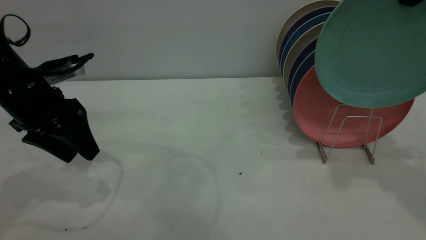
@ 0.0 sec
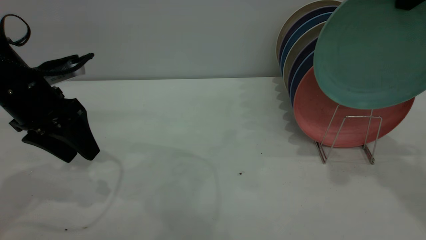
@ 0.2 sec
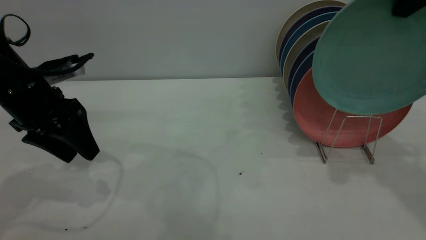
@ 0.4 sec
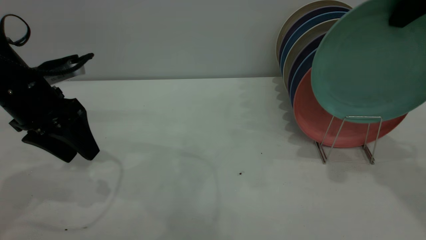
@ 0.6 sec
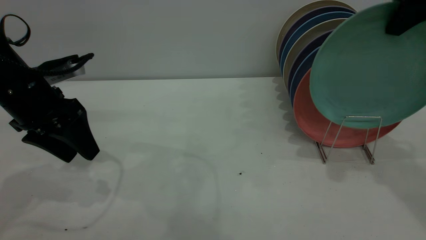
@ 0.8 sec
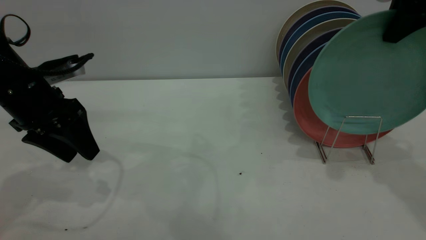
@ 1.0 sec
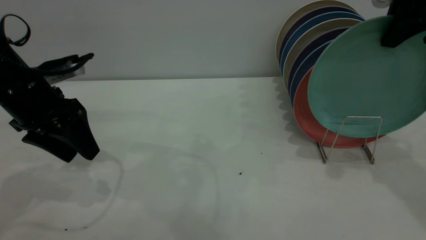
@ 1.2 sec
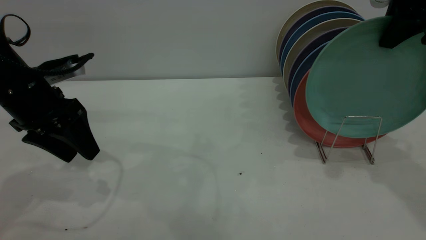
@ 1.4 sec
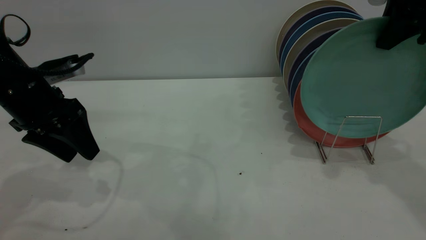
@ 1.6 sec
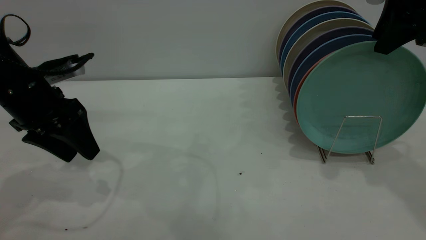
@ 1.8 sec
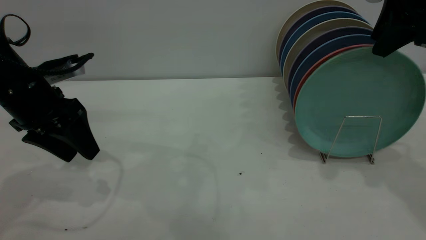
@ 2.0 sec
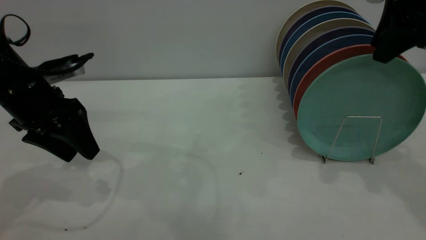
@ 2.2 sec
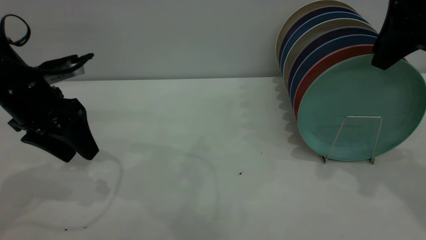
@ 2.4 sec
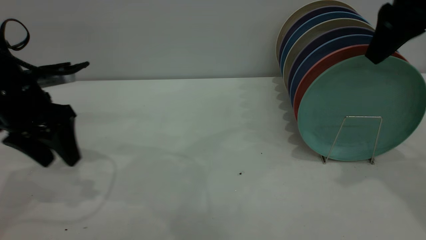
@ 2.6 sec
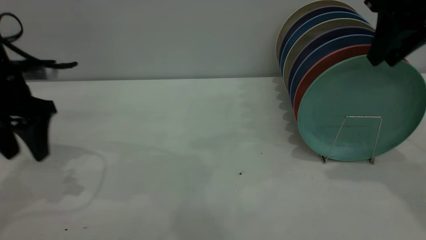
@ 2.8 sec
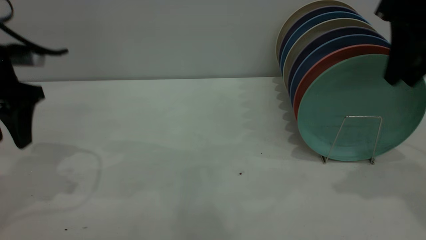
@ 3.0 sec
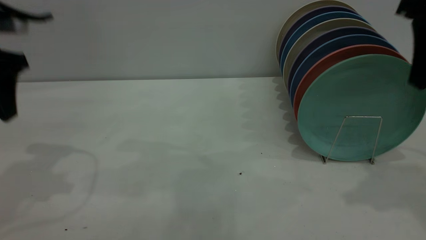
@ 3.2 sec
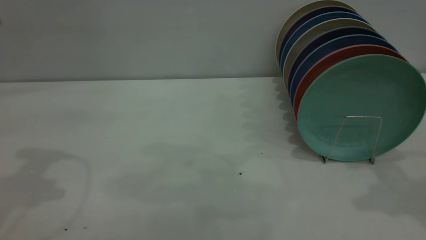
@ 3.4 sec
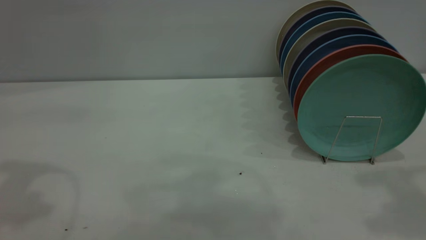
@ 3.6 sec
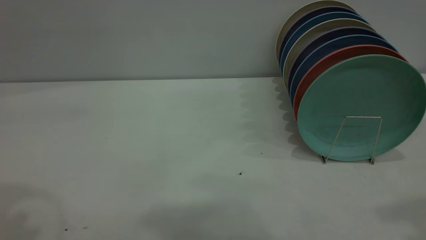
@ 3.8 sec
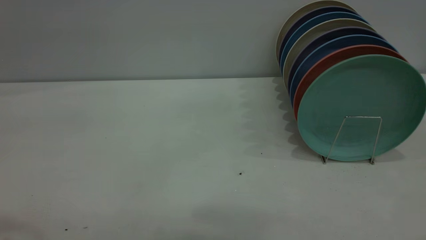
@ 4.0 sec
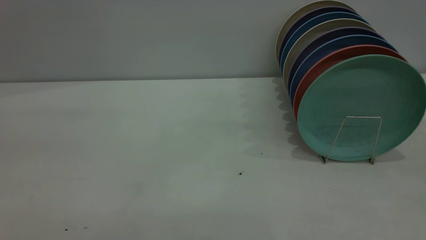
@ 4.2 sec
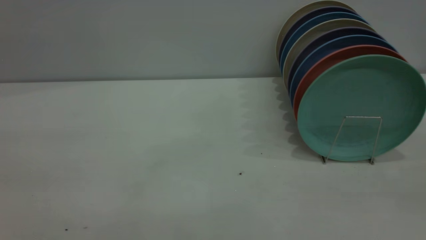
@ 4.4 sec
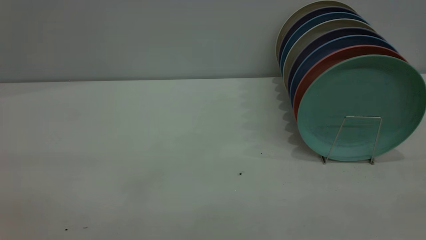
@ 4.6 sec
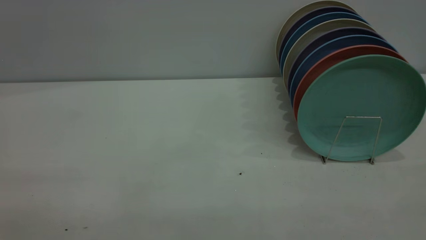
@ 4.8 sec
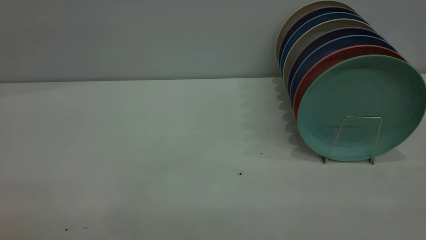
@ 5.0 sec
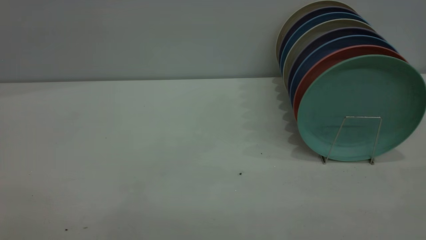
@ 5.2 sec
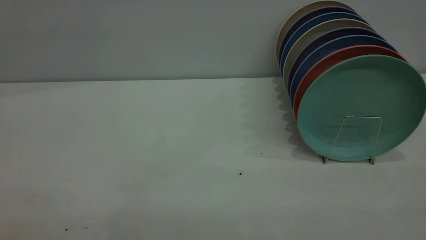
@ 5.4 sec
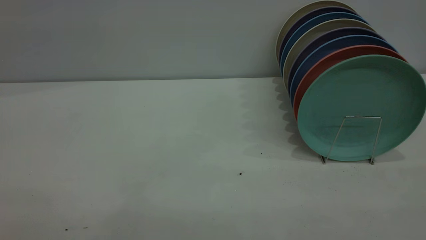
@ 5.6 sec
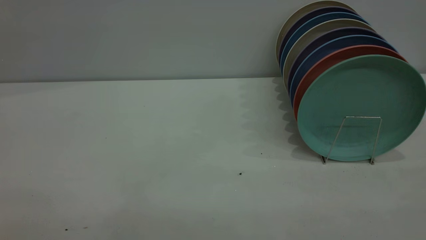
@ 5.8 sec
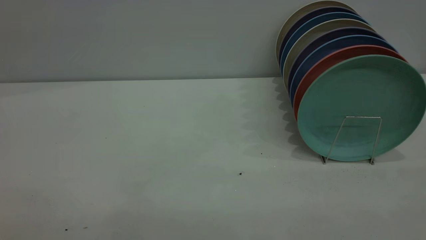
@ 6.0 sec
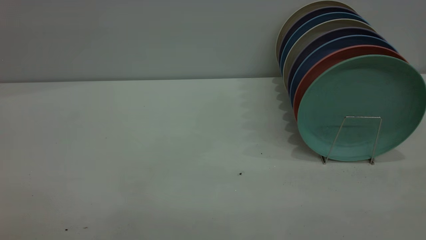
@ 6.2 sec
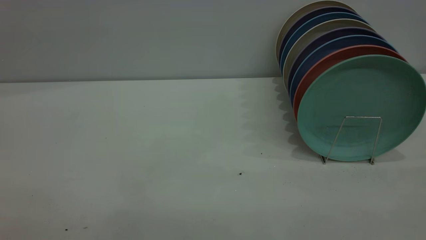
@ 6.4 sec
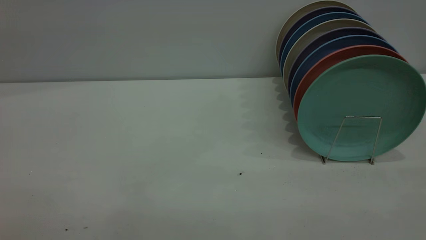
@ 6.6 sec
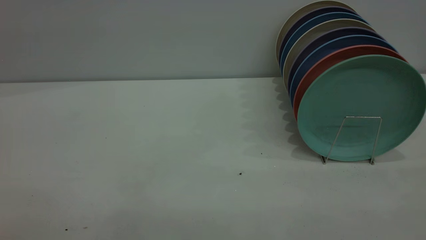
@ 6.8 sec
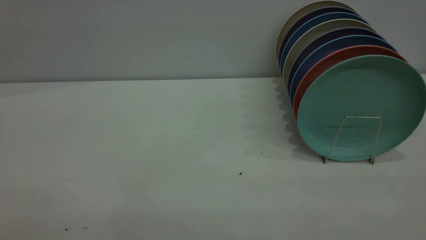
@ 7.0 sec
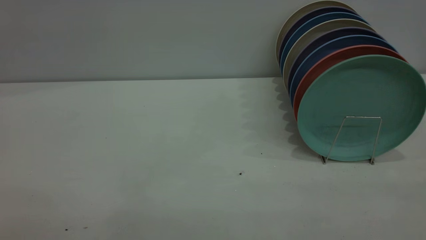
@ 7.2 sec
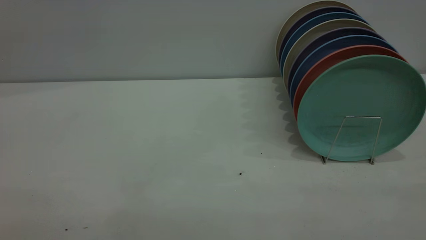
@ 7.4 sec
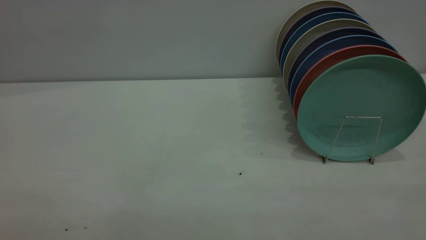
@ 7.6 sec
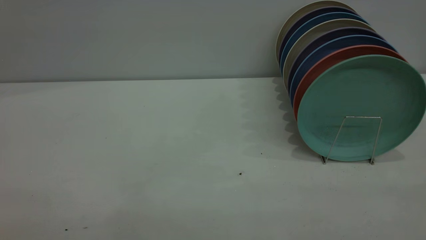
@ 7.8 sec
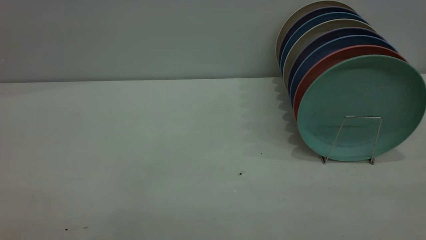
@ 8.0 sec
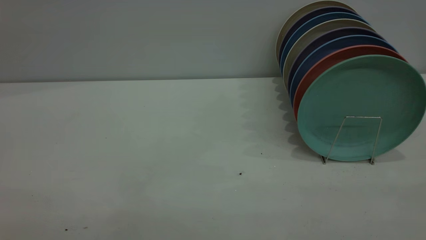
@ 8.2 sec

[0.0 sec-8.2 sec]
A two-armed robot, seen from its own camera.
Task of the whole recording: the left gripper grasp the green plate, the left gripper pass the green plate to the right gripper, and the right gripper place the green plate on the plate rack.
Step, 0.0 sec to 2.8 sec: Place the plate on the shelf.
0.0 sec to 1.6 sec: The right gripper is displaced downward by some 5 cm.
1.6 sec to 3.2 sec: The left gripper goes approximately 10 cm upward. The right gripper shifts roughly 5 cm backward, and opens its fingers.
3.2 sec to 5.0 sec: The two grippers go about 35 cm backward.
